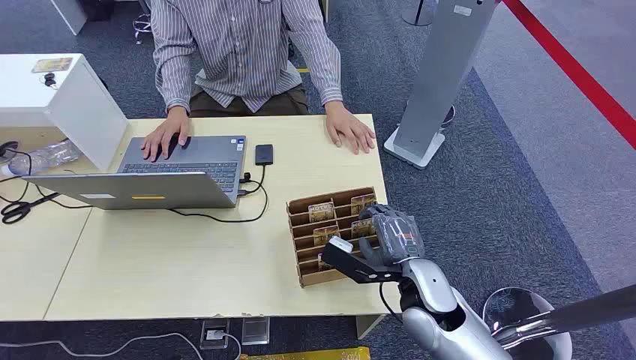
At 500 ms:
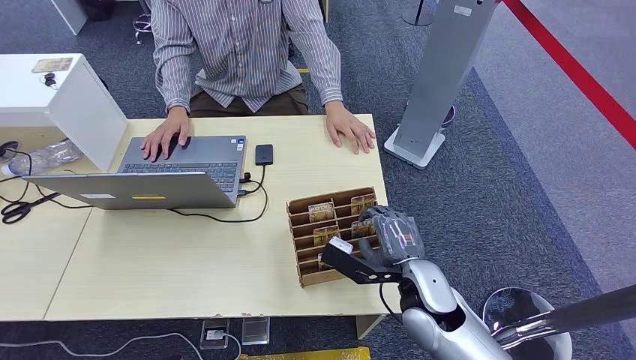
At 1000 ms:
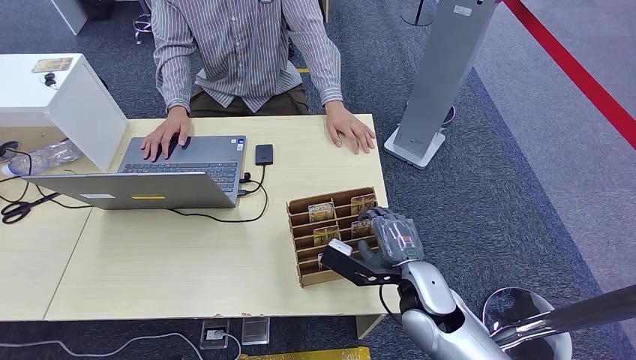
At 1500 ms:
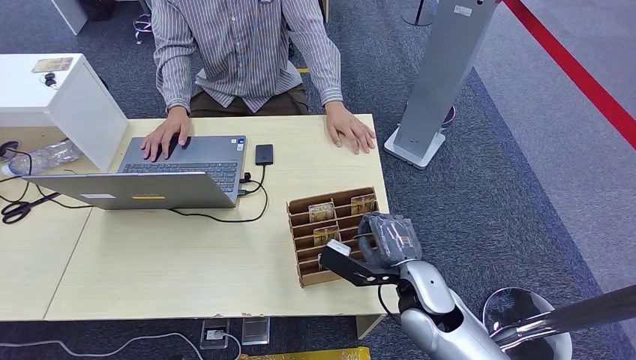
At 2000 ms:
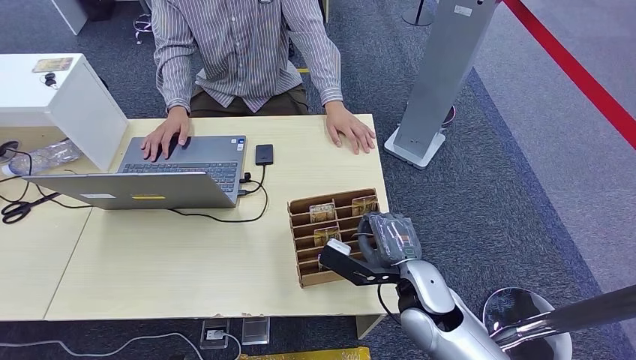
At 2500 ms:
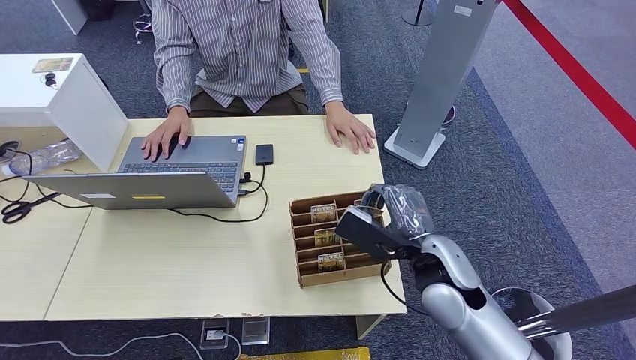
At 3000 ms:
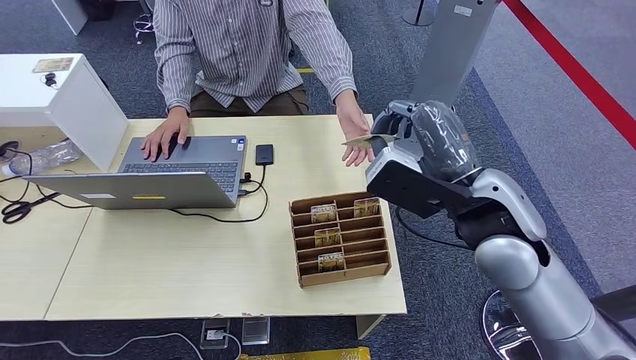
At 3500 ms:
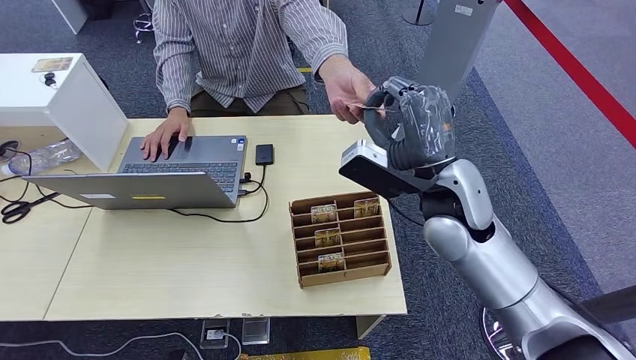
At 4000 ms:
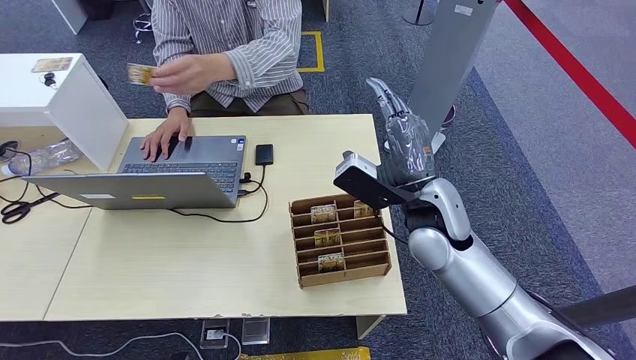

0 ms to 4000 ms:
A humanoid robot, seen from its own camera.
Step, 0 ms to 2500 ms: Pick up the room card from the card holder.
Step, 3500 ms to 4000 ms: Hand the room card to the target.
2000 ms to 4000 ms: The right hand is displaced upward and forward by about 15 cm.

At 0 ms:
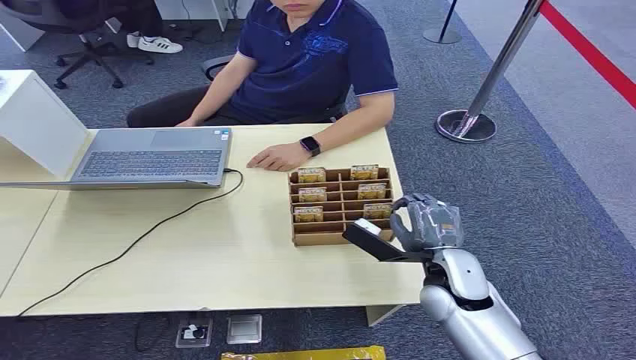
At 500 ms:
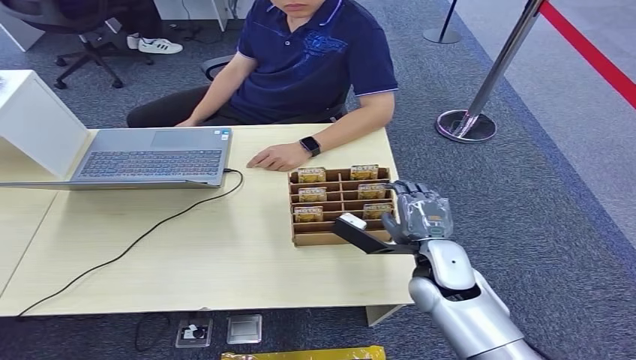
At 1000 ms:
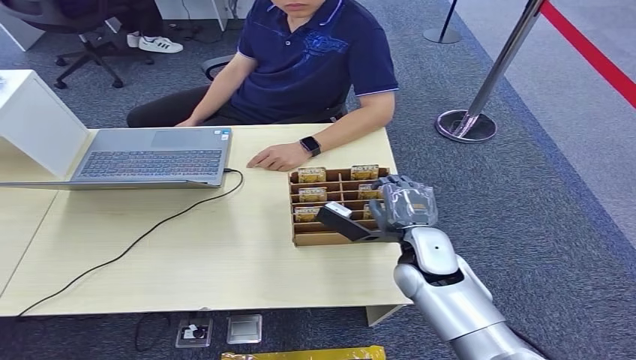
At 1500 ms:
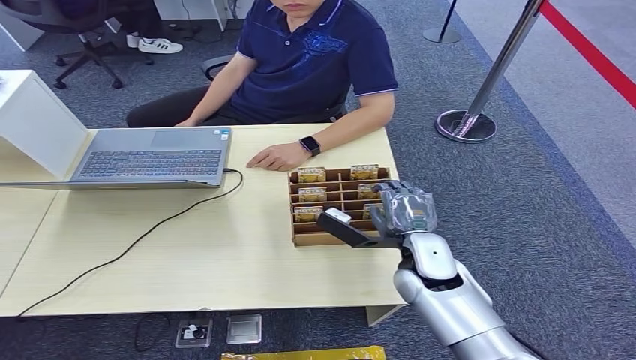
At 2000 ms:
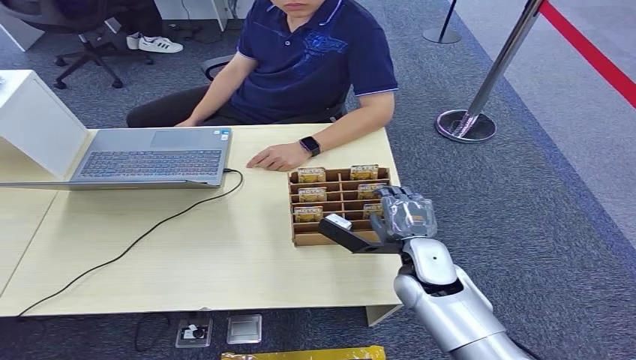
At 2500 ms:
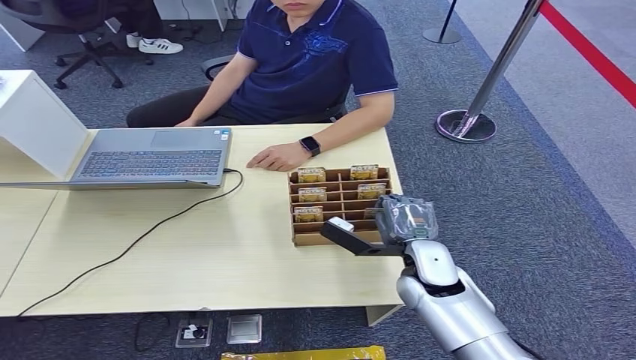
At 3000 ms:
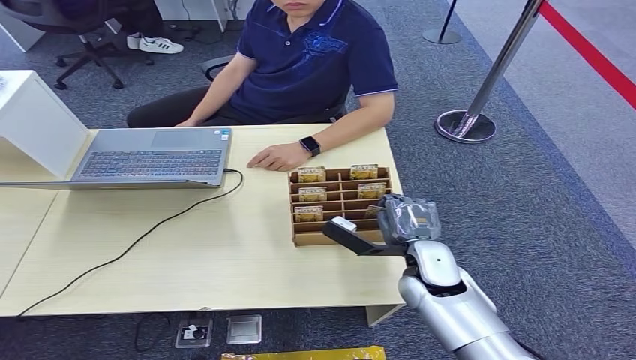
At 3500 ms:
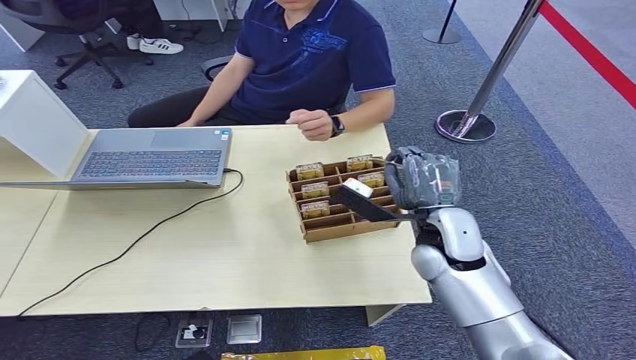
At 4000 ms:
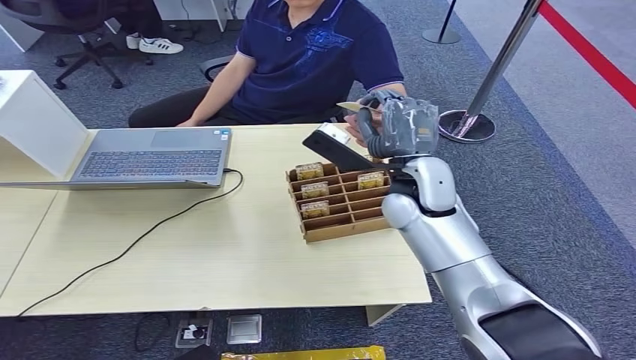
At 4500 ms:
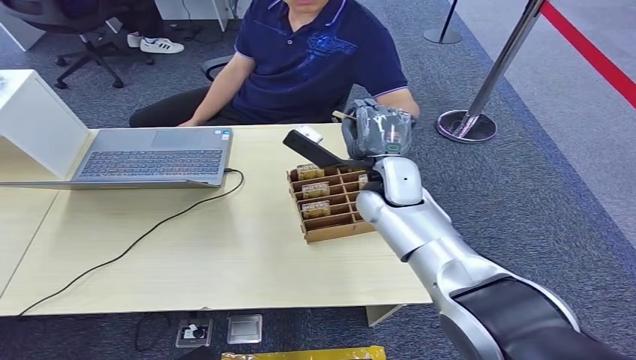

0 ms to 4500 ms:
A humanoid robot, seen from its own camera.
Step, 0 ms to 3000 ms: Pick up the room card from the card holder.
Step, 3500 ms to 4000 ms: Hand the room card to the target.
2000 ms to 4500 ms: The right hand is displaced forward and upward by about 15 cm.
